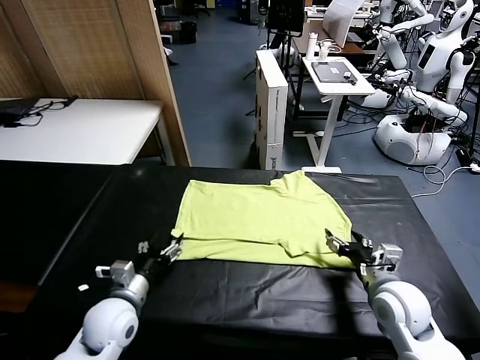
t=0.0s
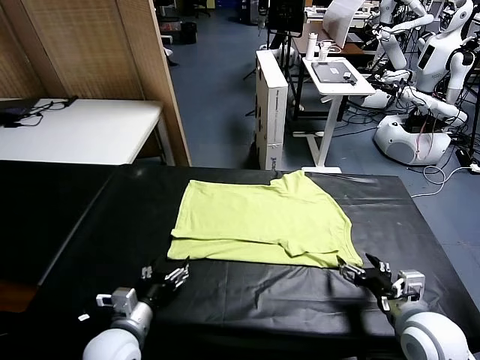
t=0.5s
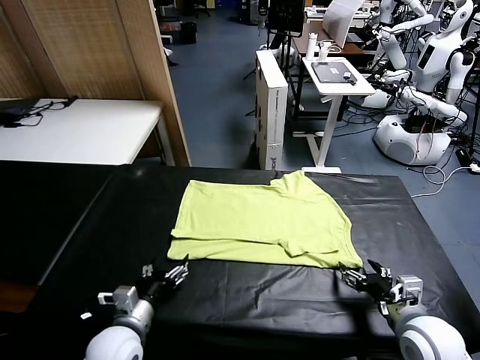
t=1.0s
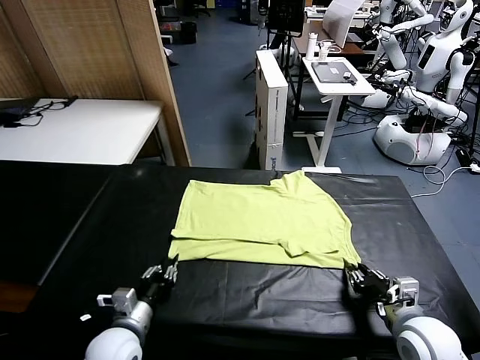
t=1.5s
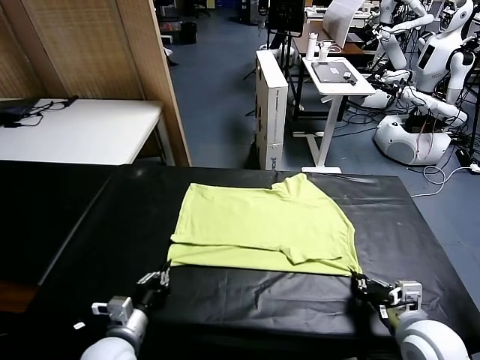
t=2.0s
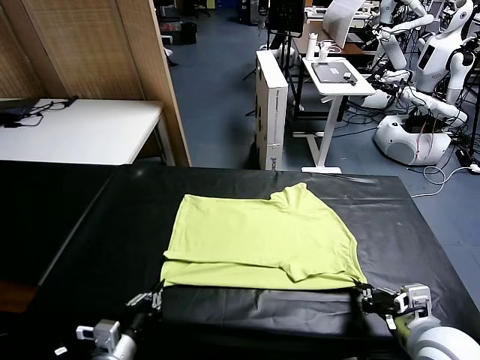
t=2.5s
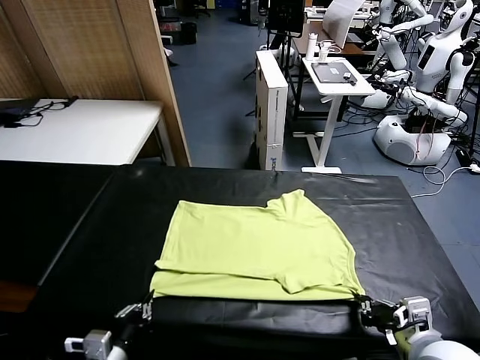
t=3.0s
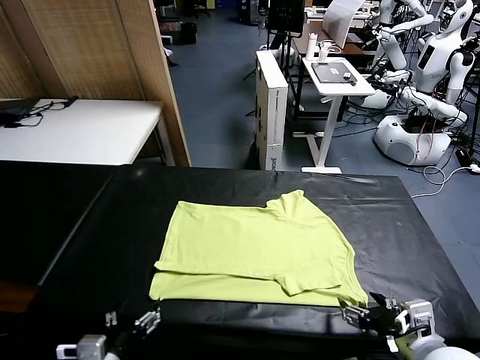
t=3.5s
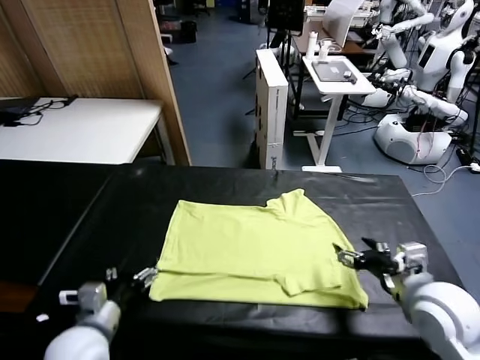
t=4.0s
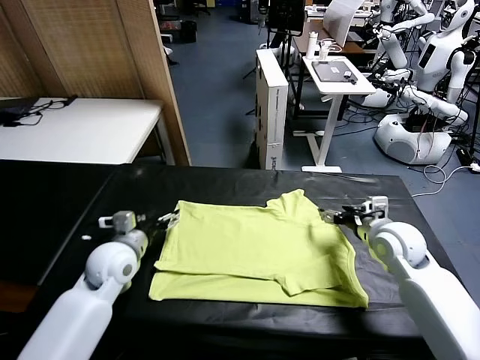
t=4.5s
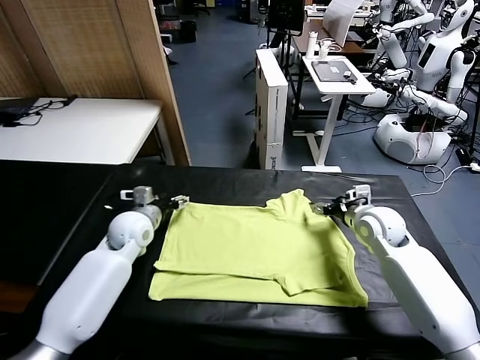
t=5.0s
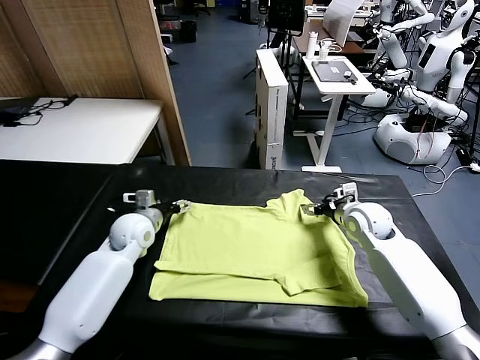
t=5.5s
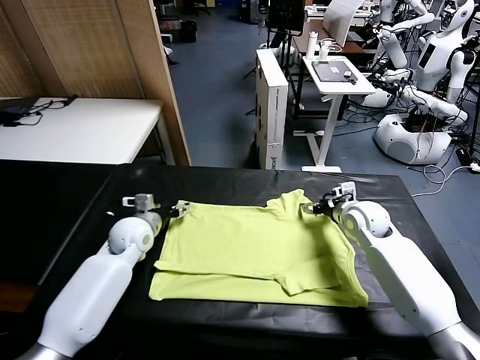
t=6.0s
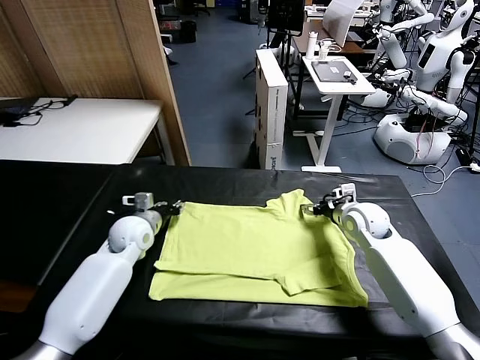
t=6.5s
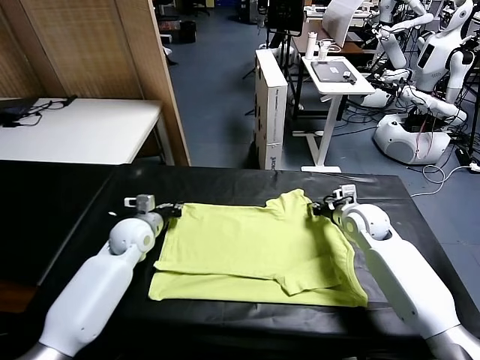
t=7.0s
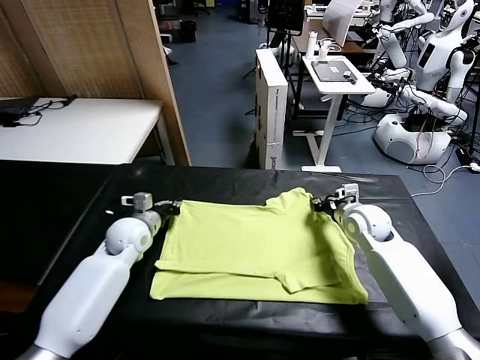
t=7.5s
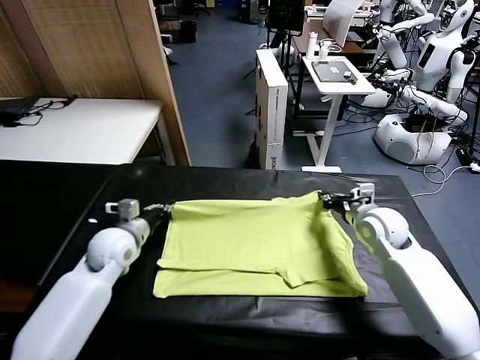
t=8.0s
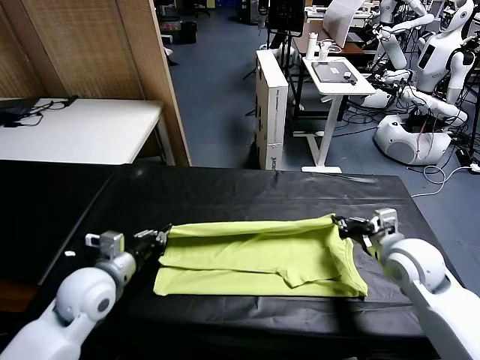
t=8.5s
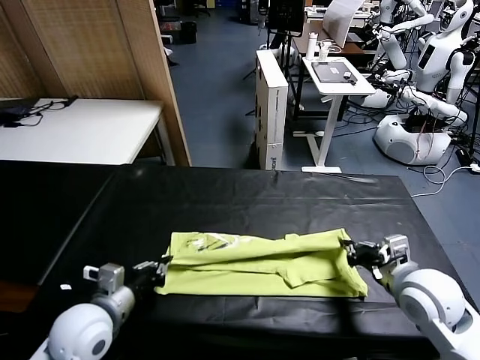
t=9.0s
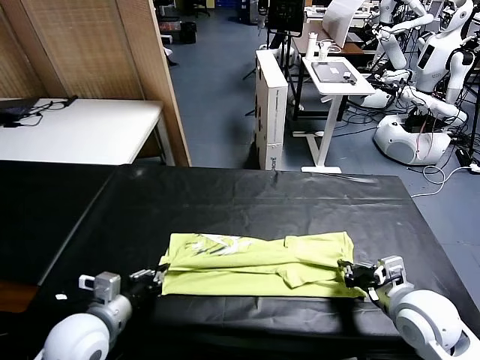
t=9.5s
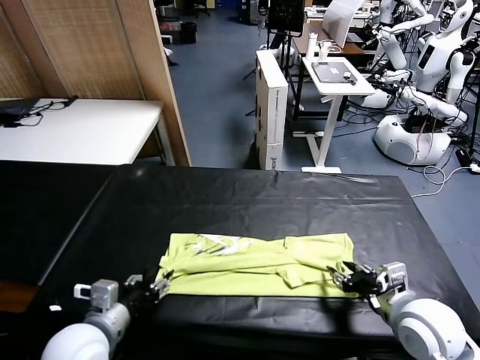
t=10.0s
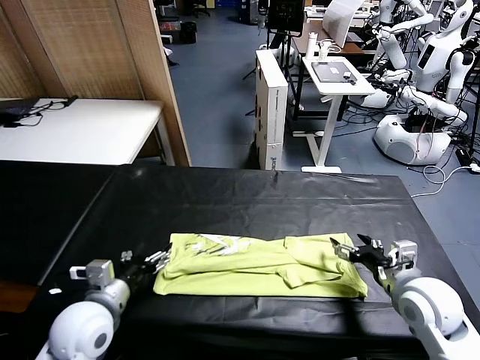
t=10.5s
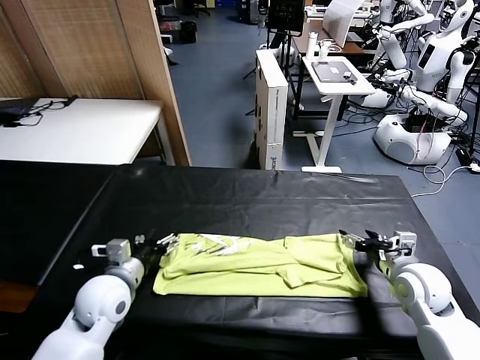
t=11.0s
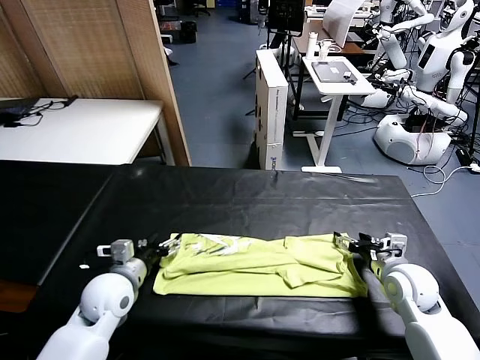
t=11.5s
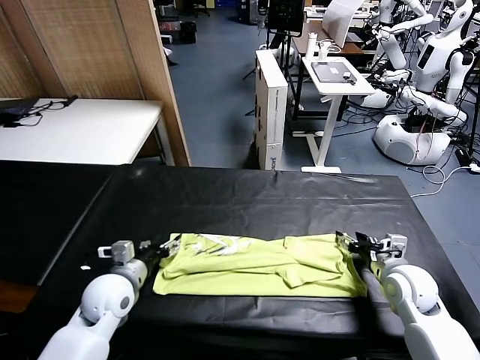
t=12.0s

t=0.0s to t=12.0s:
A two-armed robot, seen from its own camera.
Task of the whole recording: fold and organize the clothes.
Step, t=0.5s to t=3.0s: Drag the clothes downward with both gripper.
Step, t=4.0s to t=7.0s: use both grippers simultaneously to clamp the upper edge of the clothing fabric.
Step, t=7.5s to t=10.0s: use both grippers to drag the upper edge of the fabric backward and fold it over the lower edge.
t=0.0s to t=2.0s: The left gripper shifts about 5 cm backward, and closes, while the right gripper closes.
t=2.0s to t=4.0s: The left gripper moves forward and upward, some 15 cm, and opens; the right gripper travels forward by approximately 20 cm, and opens its fingers.
t=4.0s to t=6.0s: Both grippers move forward, about 15 cm.
t=6.0s to t=8.0s: The two grippers go about 10 cm backward. The left gripper closes up. Meanwhile the right gripper closes.
t=8.0s to t=10.0s: Both grippers travel together backward, roughly 15 cm. The left gripper opens its fingers. The right gripper opens up.
t=10.0s to t=12.0s: The grippers both shift forward and downward by roughly 10 cm. The right gripper closes its fingers. The left gripper closes up.

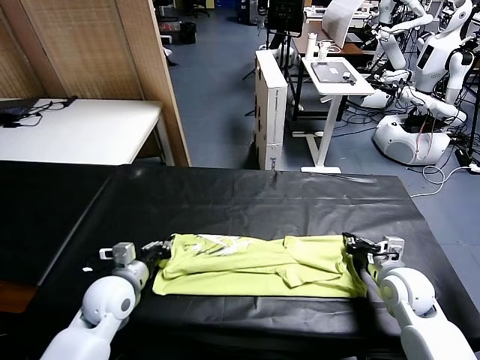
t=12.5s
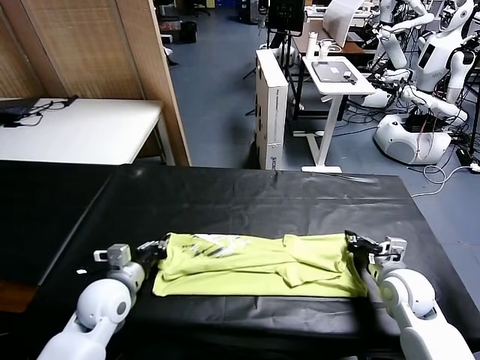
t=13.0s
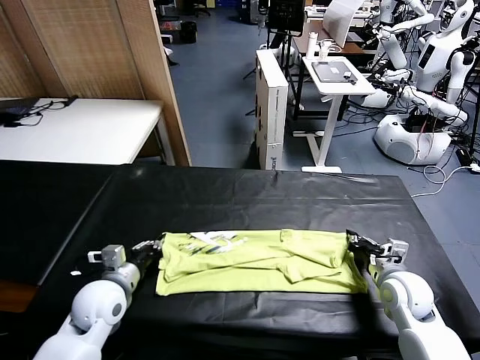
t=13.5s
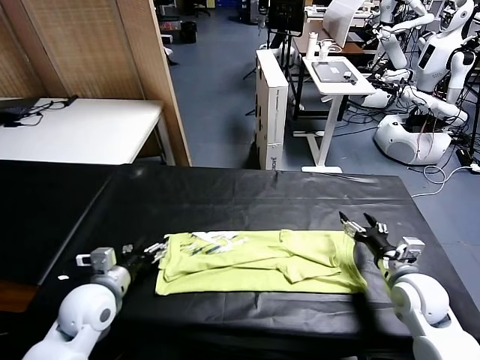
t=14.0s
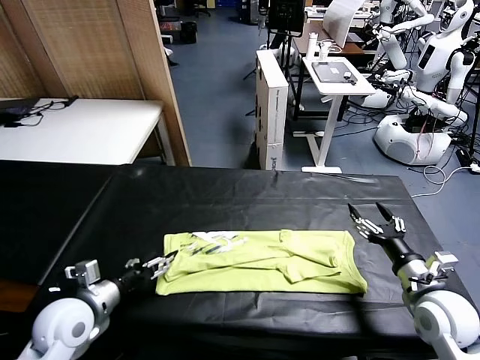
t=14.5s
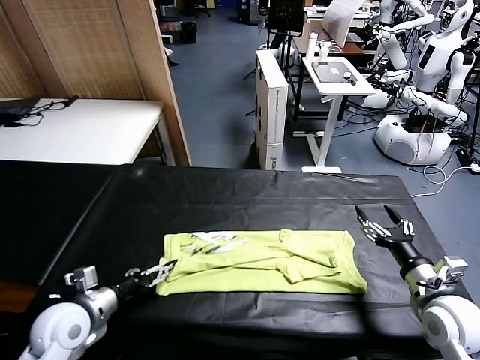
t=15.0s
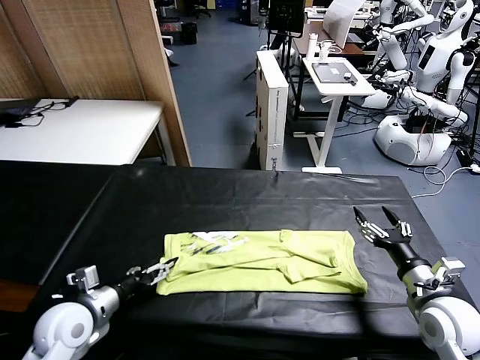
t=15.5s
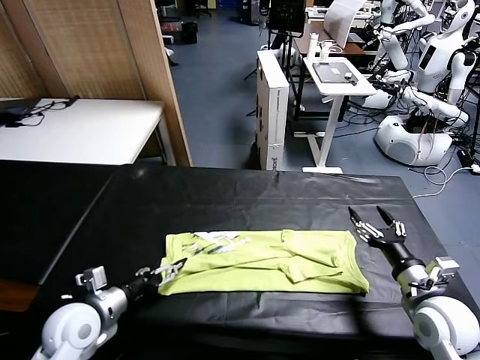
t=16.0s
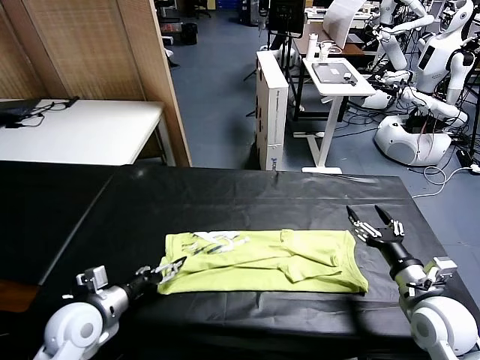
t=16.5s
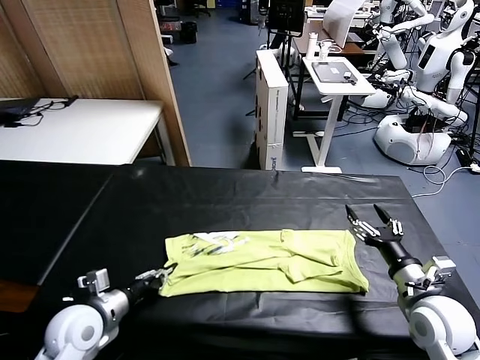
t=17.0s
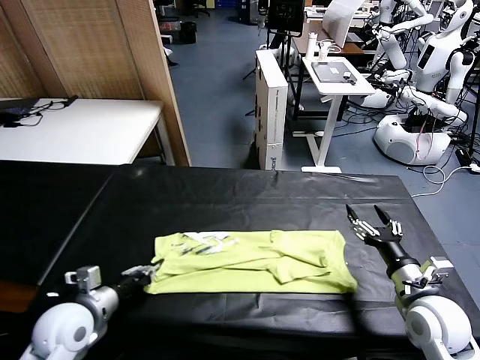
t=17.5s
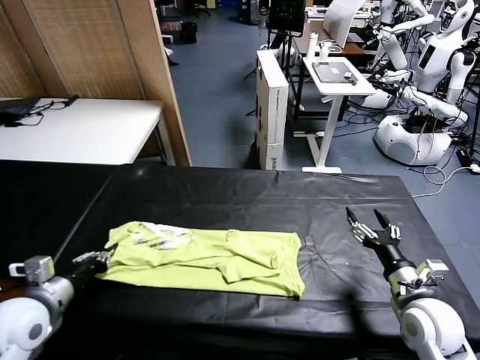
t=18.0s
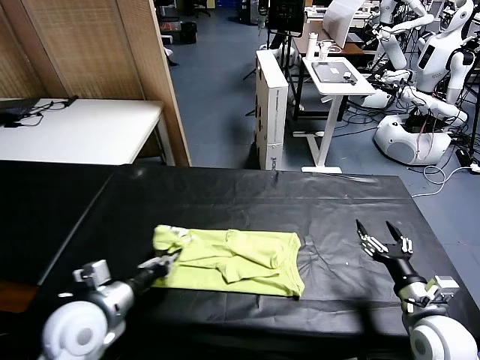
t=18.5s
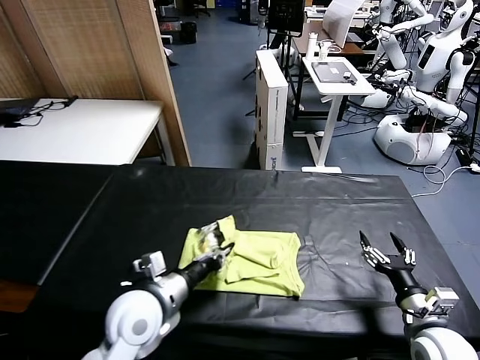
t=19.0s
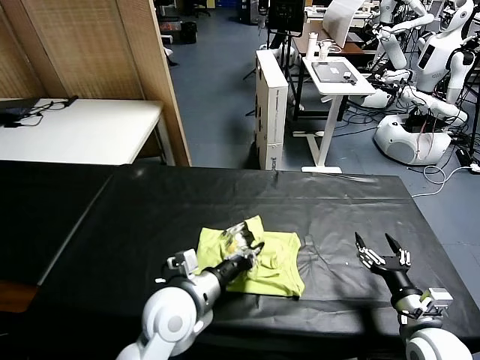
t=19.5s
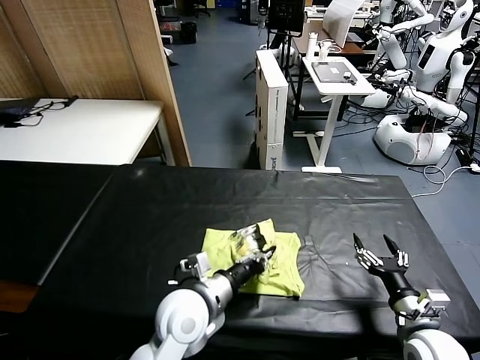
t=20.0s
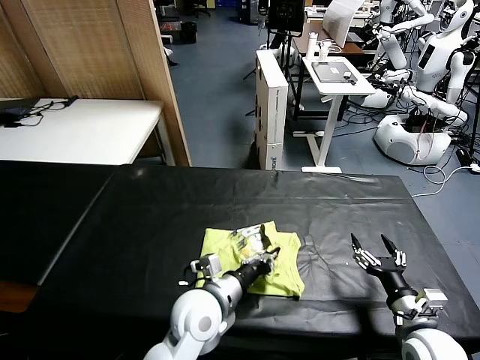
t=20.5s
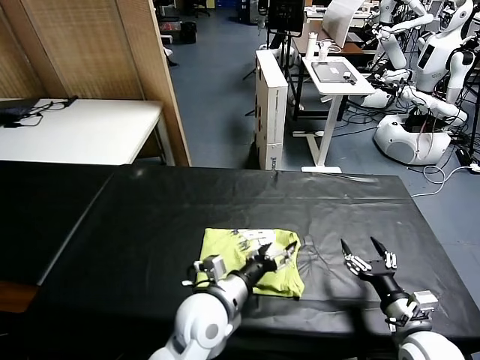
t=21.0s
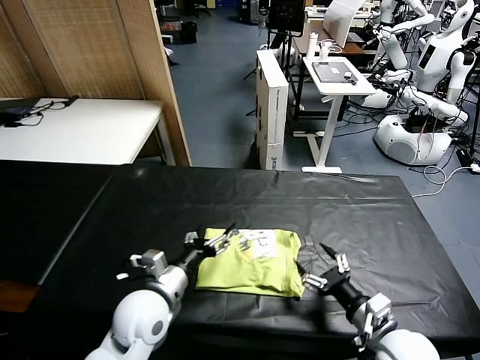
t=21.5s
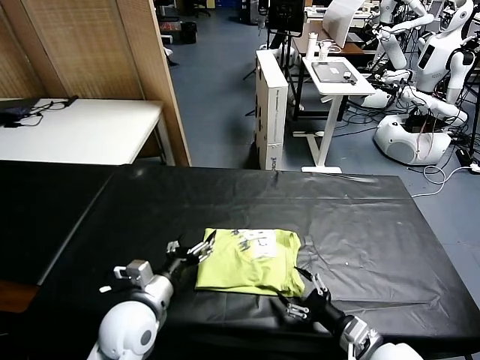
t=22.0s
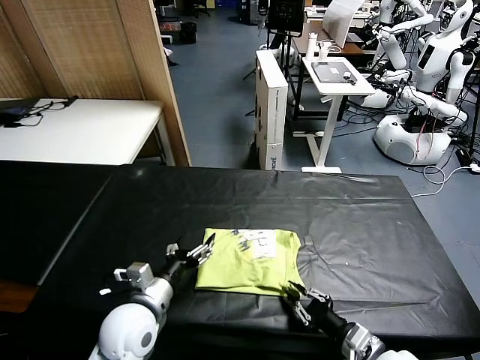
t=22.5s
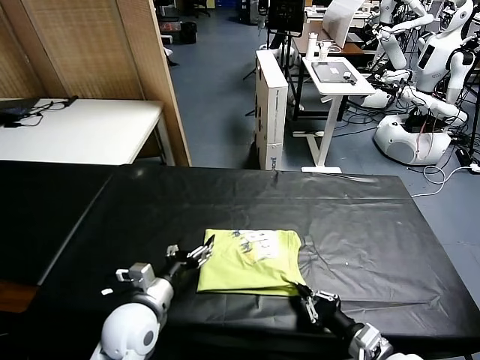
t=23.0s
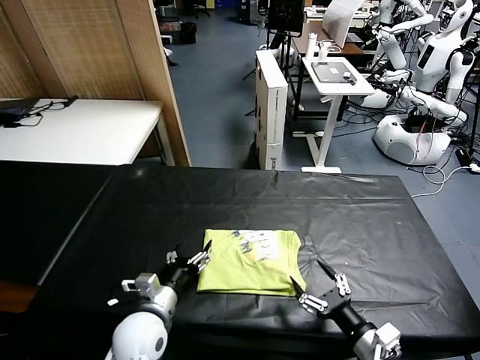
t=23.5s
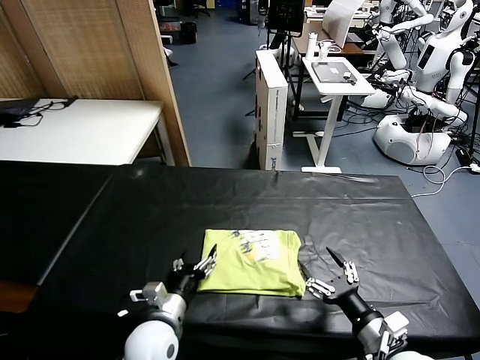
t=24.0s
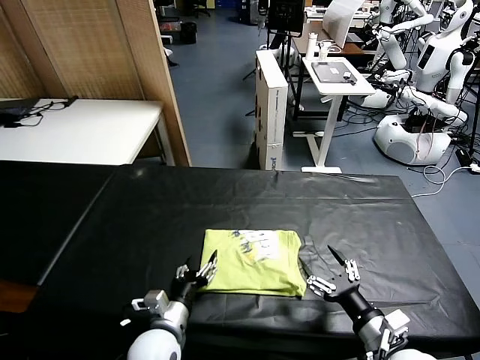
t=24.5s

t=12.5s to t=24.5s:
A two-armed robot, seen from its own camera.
Task of the whole recording: fold and organize the clothes.
Step, t=12.5s to t=17.0s: use the left gripper to clamp the left edge of the fabric.
Step, t=17.5s to t=20.5s: use the left gripper to drag the left edge of the fabric to the left and folds it over the right edge.
t=12.5s to t=14.5s: The right gripper is displaced backward and upward by approximately 10 cm, and opens its fingers. The left gripper is displaced backward and to the left by some 10 cm, and opens its fingers.
t=14.5s to t=16.5s: The grippers stay close to where they were, moving slightly.
t=16.5s to t=18.5s: The right gripper changes place by approximately 5 cm, while the left gripper moves to the right and upward, some 10 cm, and closes its fingers.
t=18.5s to t=20.5s: The left gripper heads to the right, covering about 20 cm.
t=20.5s to t=22.5s: The left gripper shifts roughly 10 cm to the left, and opens its fingers. Meanwhile the right gripper moves to the left, approximately 5 cm, and closes.
t=22.5s to t=24.5s: The right gripper opens its fingers; the left gripper travels downward by roughly 10 cm.

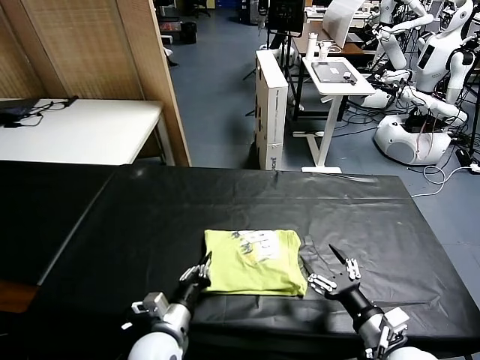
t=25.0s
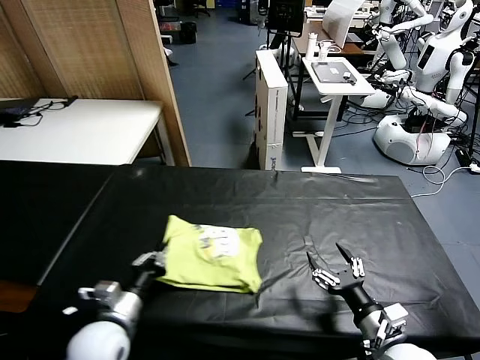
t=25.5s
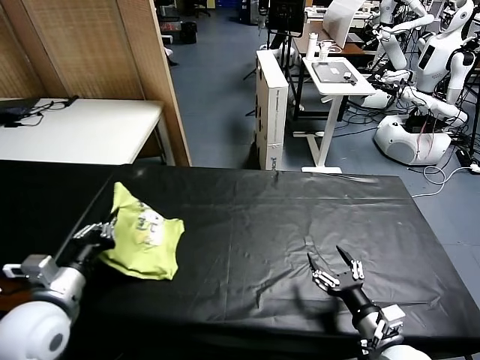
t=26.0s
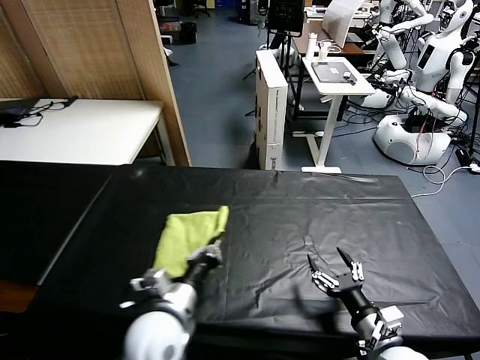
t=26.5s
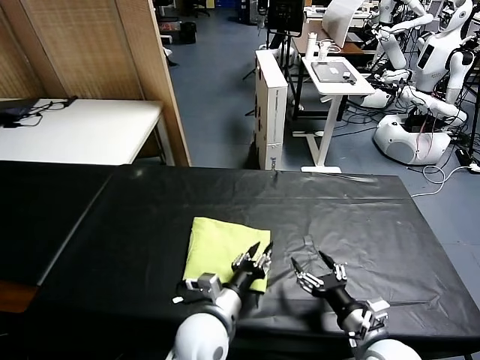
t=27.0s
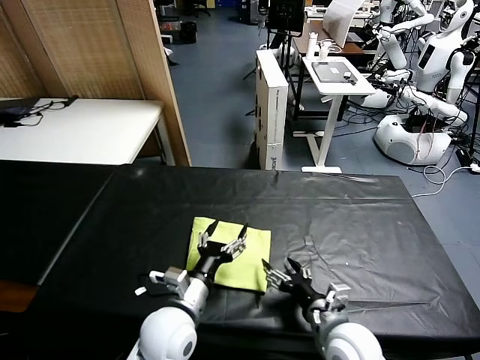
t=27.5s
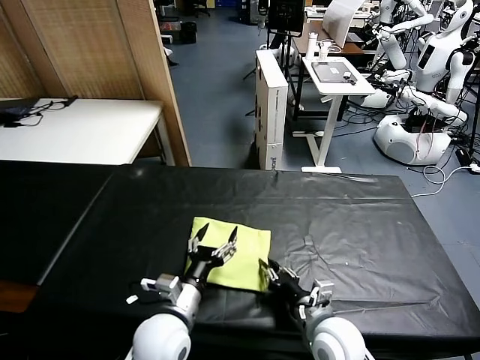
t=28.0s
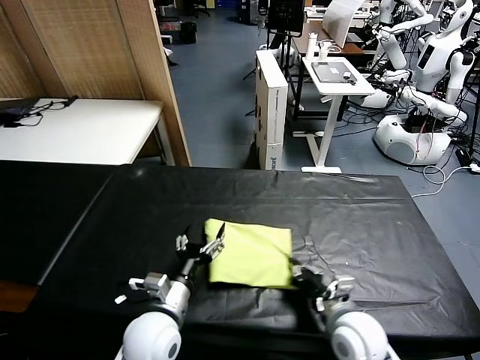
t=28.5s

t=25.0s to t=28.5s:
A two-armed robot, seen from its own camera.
Task of the whole recording: fold and organize the clothes.
Step, t=25.0s to t=27.0s: Flip the folded clothes over with left gripper.
t=25.0s to t=27.0s: The left gripper is displaced to the right by about 10 cm, and opens its fingers.
t=27.0s to t=28.5s: The left gripper heads to the left, covering roughly 10 cm, and opens up, while the right gripper goes about 5 cm to the left, and closes up.
